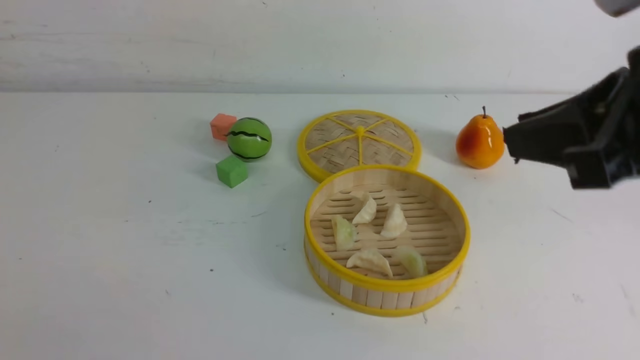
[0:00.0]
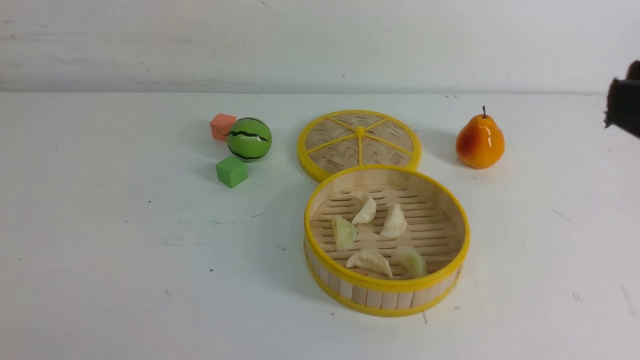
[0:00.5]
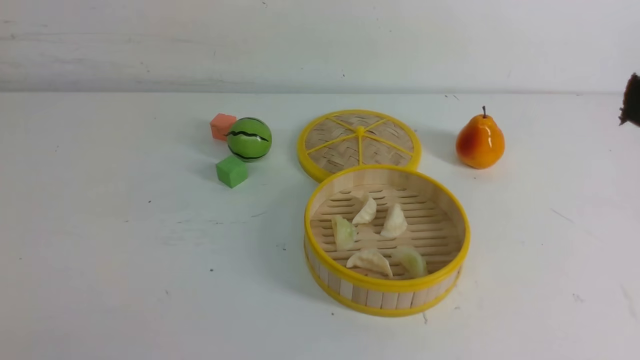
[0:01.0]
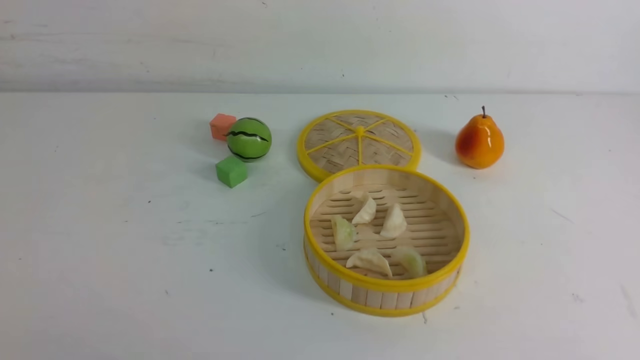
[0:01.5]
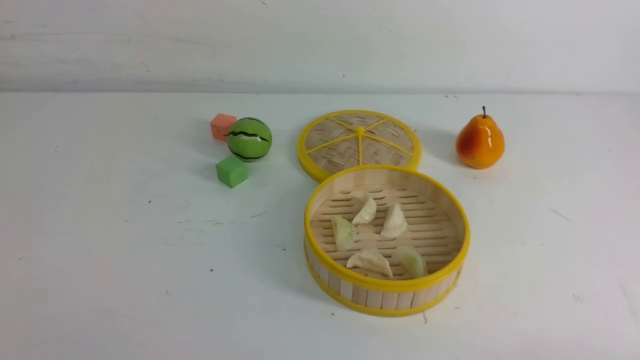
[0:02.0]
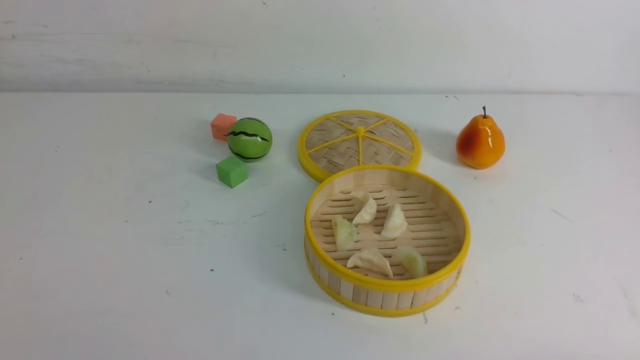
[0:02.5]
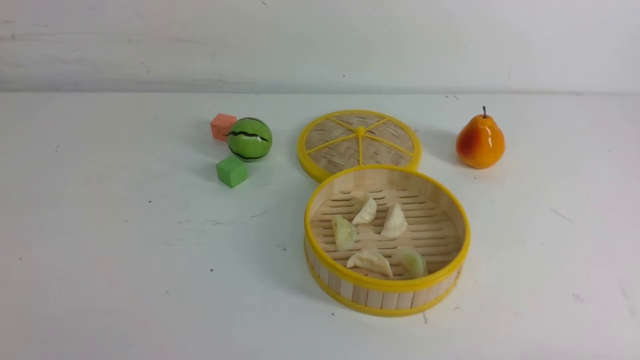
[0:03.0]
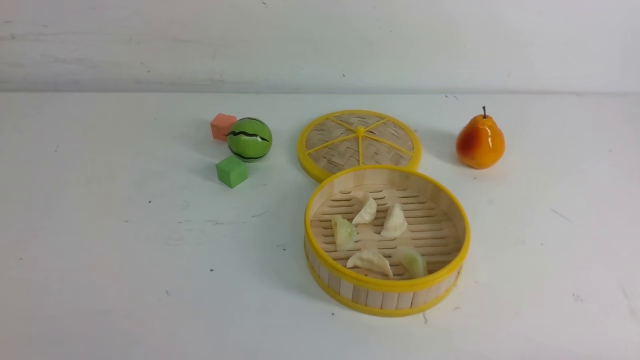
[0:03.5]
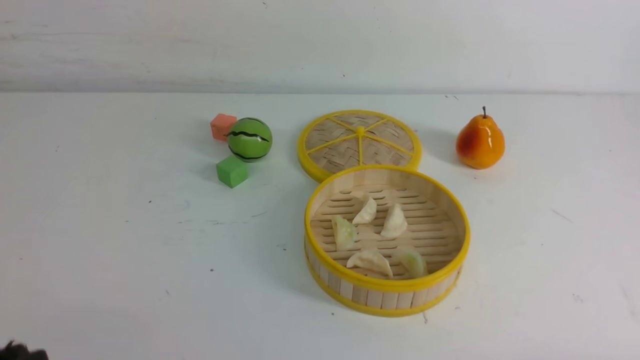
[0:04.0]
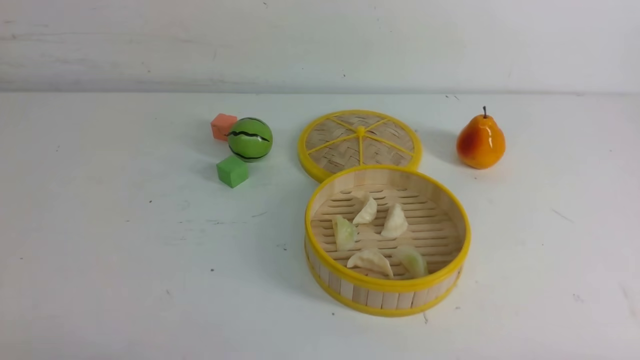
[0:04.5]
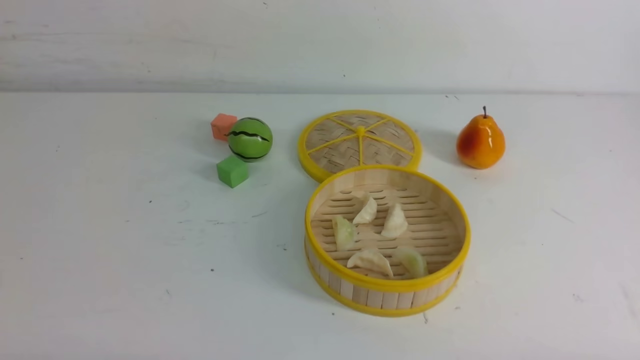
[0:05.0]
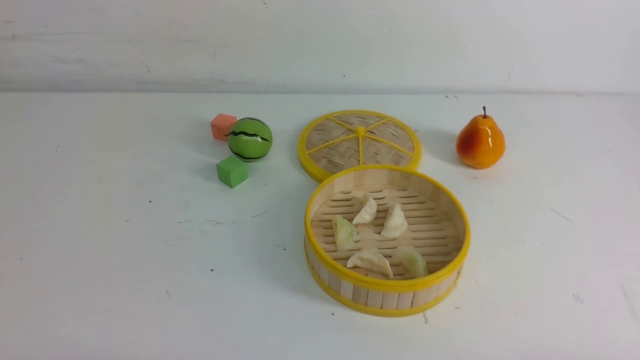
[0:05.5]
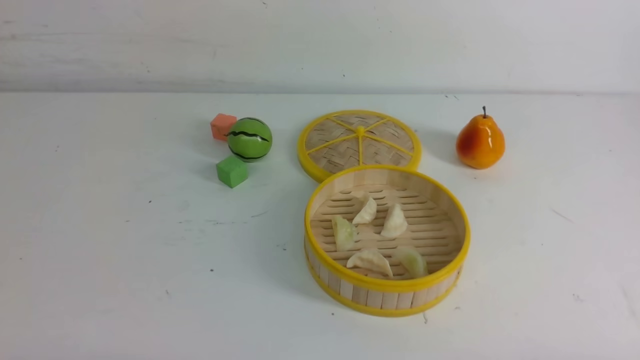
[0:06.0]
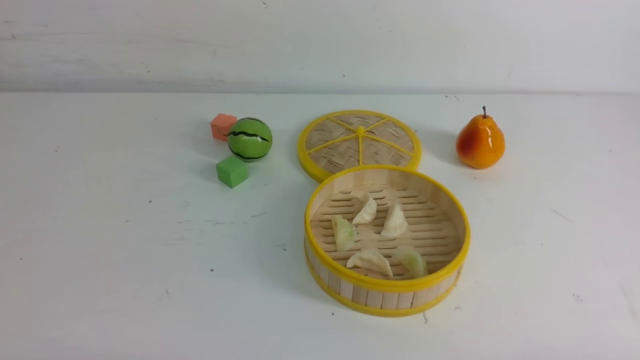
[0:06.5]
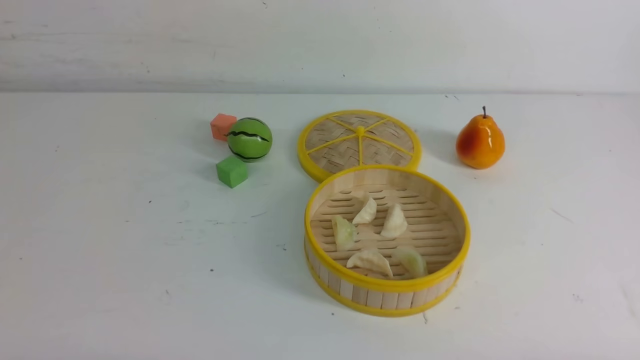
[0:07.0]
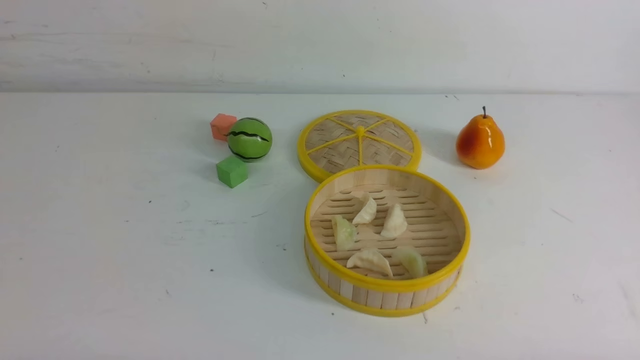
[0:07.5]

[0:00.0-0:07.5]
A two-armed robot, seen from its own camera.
Task of the whole recording: put the dumplings into the steamer on the white table.
0:00.0 to 0:02.0: The right gripper shifts roughly 30 cm downward, backward and to the right.
0:05.5 to 0:07.5: Both grippers stay about where they are.

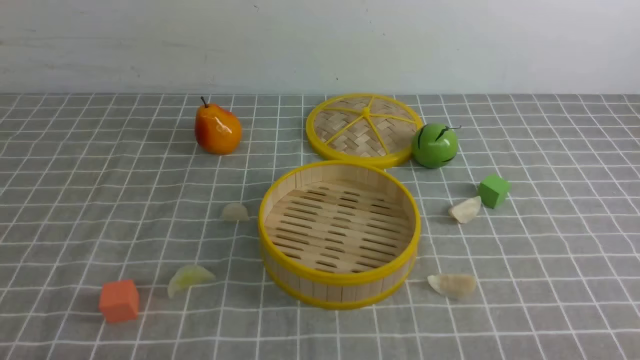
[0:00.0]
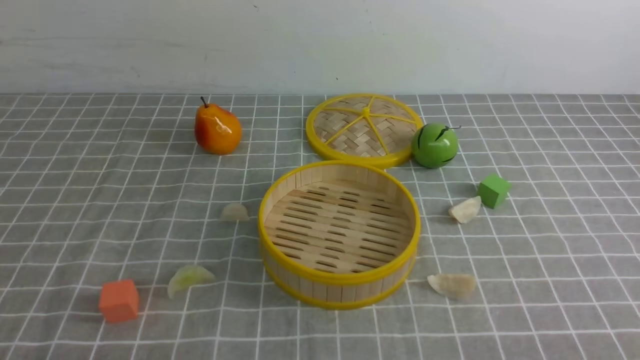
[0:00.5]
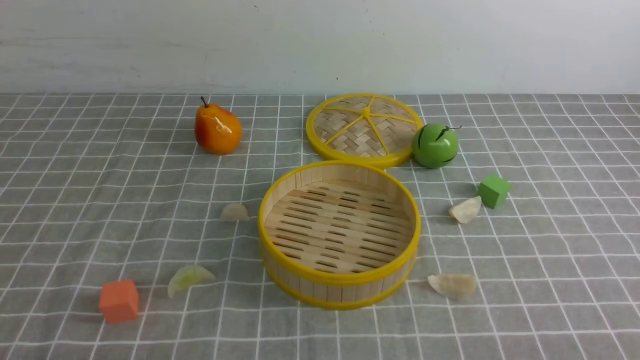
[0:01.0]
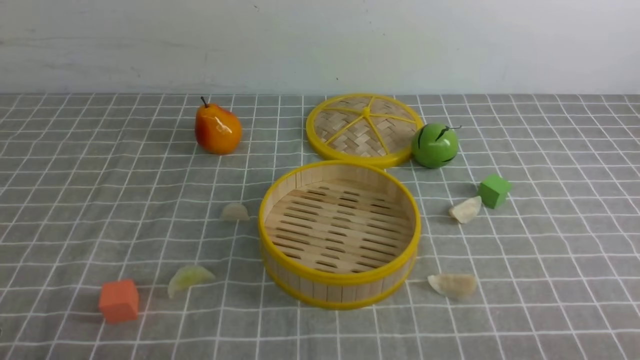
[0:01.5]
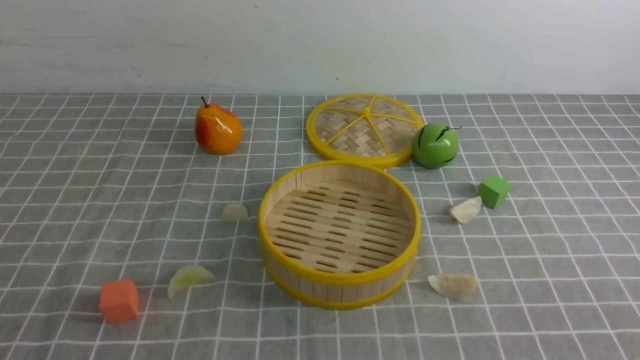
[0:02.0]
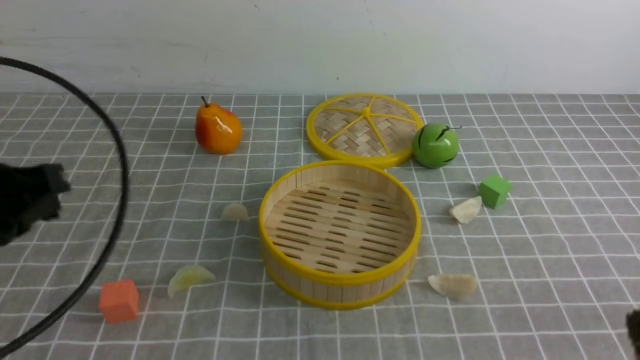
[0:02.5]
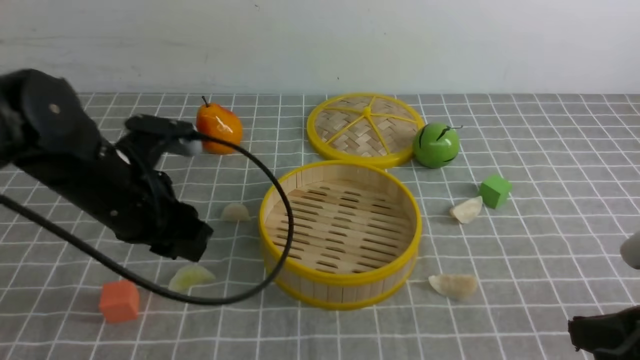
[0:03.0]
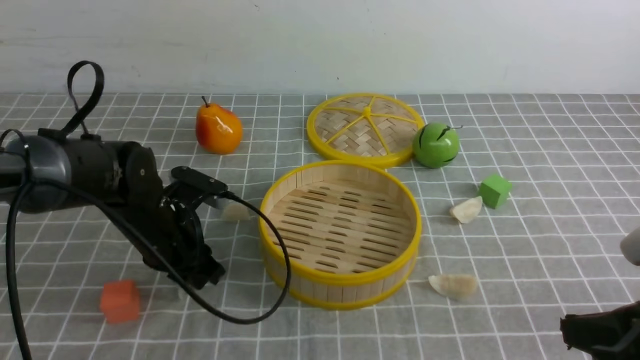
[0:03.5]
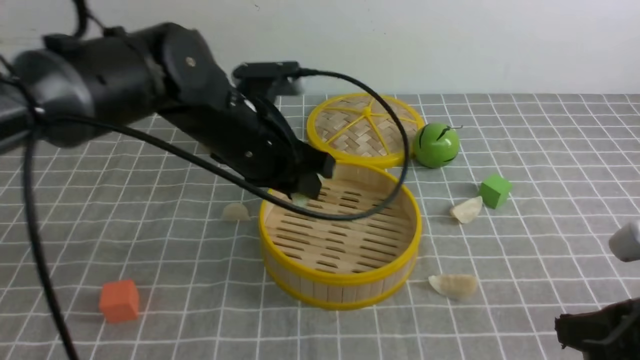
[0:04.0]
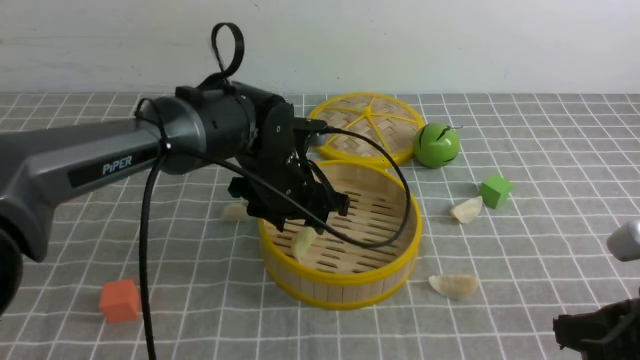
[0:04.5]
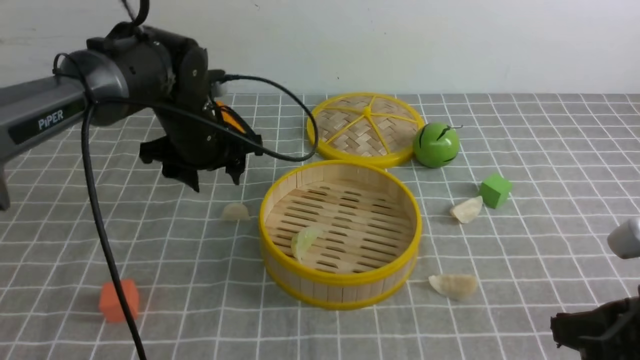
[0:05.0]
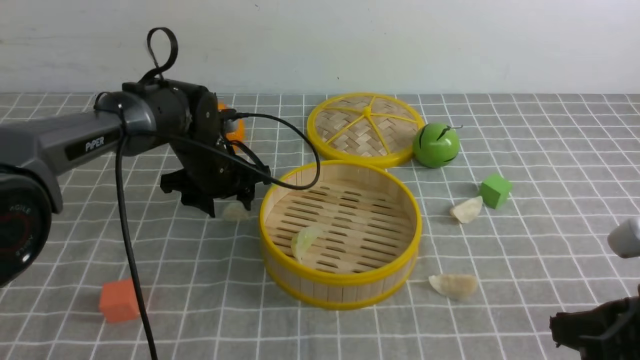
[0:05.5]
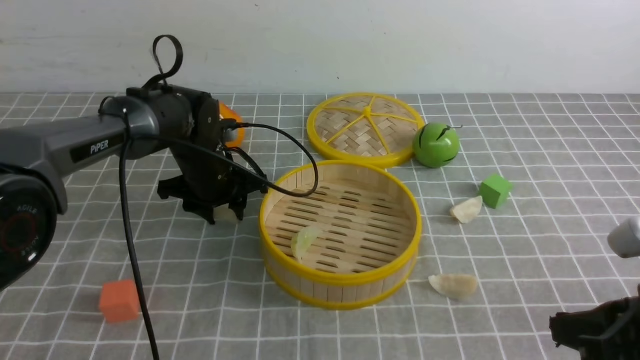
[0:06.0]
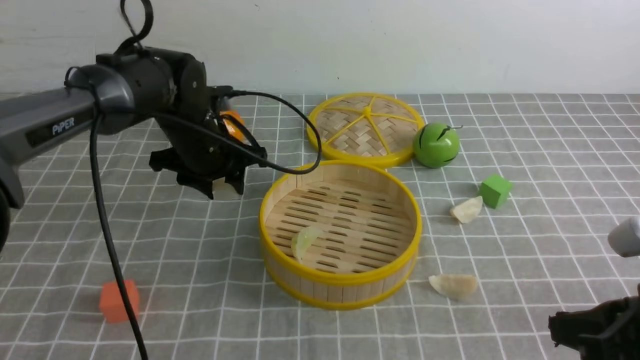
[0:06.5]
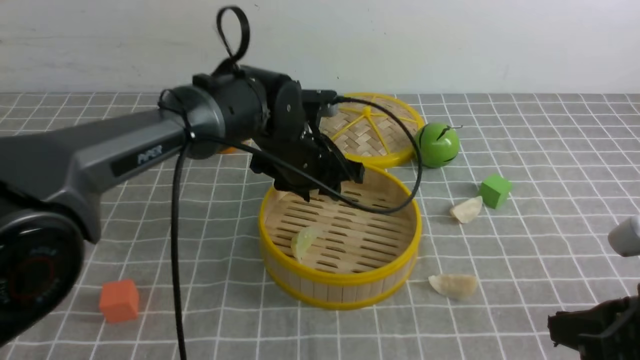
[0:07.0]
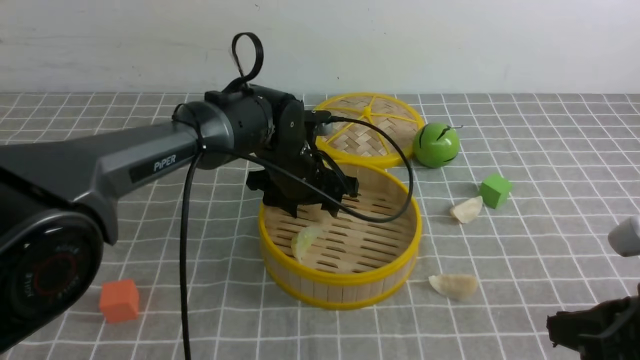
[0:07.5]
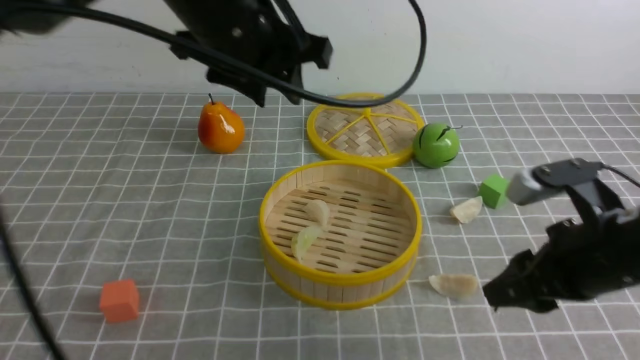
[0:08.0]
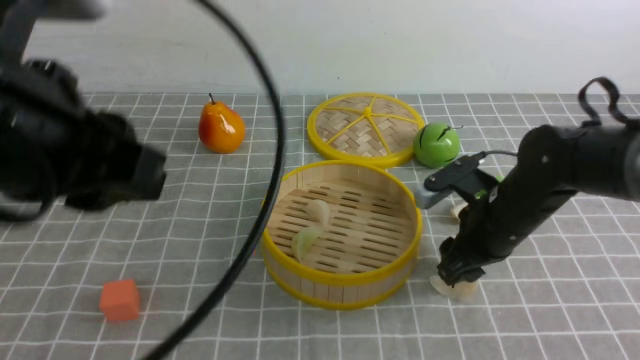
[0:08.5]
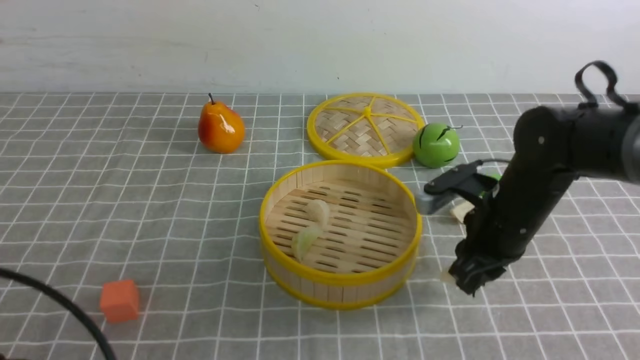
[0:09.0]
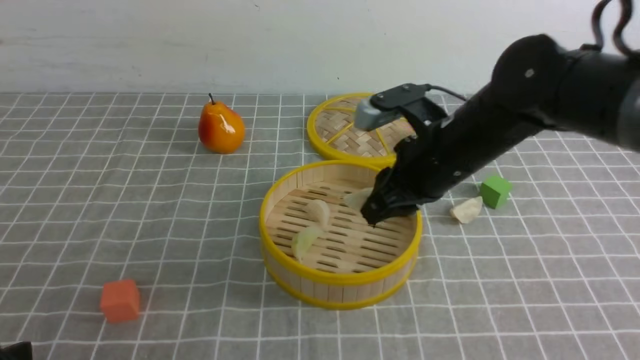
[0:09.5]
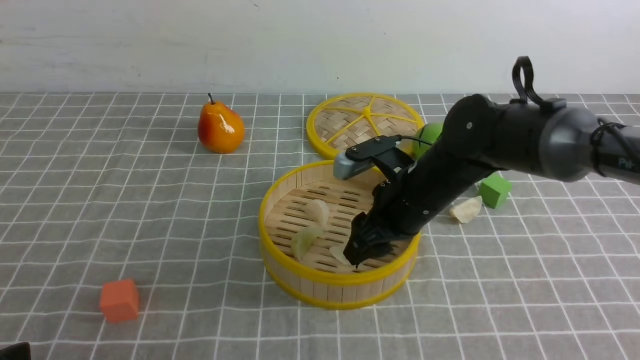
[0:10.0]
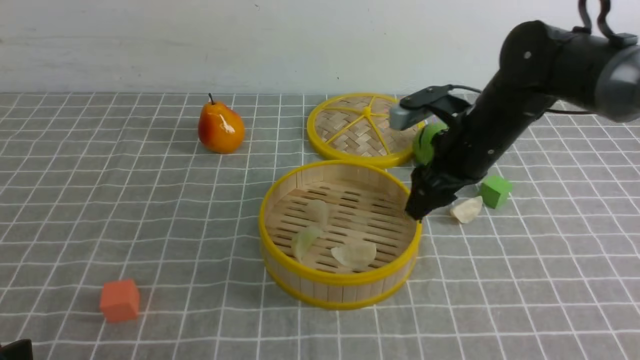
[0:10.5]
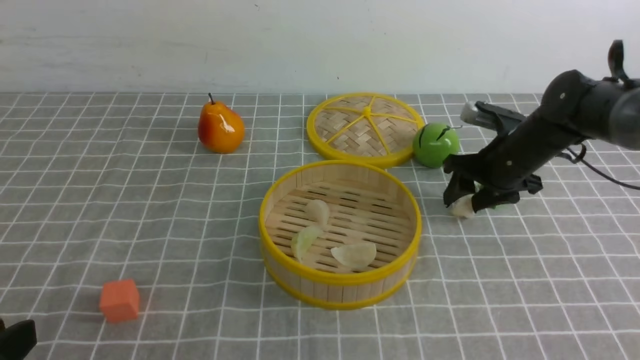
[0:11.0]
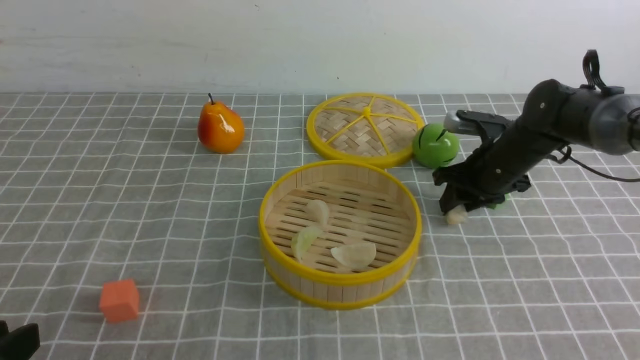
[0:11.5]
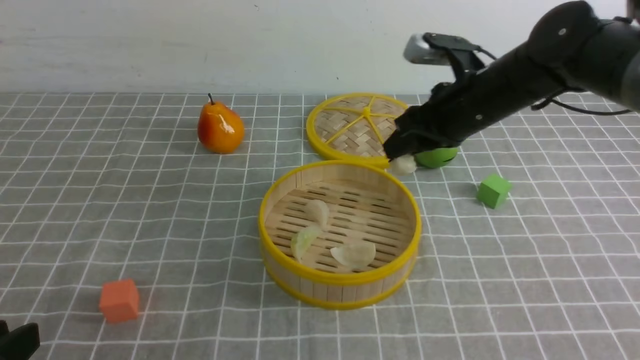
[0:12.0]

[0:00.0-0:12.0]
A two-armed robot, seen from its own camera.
Task of the whole recording: put the dumplings into the steamer on the table with the grey tablecloth.
Step, 0:00.0 to 0:03.5: use the left arm to grab a dumpling.
Step, 0:04.0 to 0:04.5: use the left arm to put the dumpling into the steamer.
Step, 0:05.0 to 0:06.0: use the left arm to grab a dumpling.
Step, 0:08.0 to 0:09.0: use the right arm to grab a dumpling.
Step, 0:09.5 to 0:10.0: use the right arm to put the dumpling into the steamer.
Step, 0:10.5 to 0:11.5: use the right arm to grab a dumpling.
0:02.0 to 0:04.0: The right gripper moves forward, some 10 cm, while the left gripper travels forward and to the right by some 35 cm.
0:04.0 to 0:06.0: The left gripper is displaced forward and downward by approximately 15 cm, and travels to the right and back again, about 5 cm each way.
0:06.0 to 0:08.0: The right gripper moves forward, some 5 cm, and opens. The left gripper moves up and down over about 20 cm, changing direction 2 times.
0:08.0 to 0:10.0: The right gripper is displaced forward and to the left by roughly 20 cm, while the left gripper goes some 35 cm backward and to the left.
0:10.0 to 0:12.0: The right gripper heads to the right and forward, covering about 10 cm.
